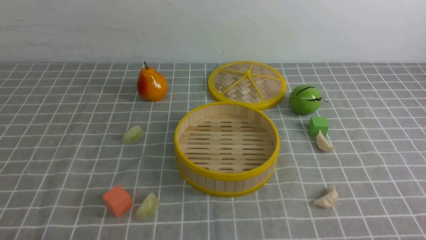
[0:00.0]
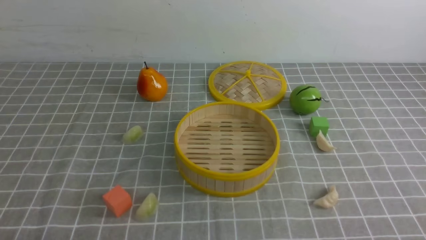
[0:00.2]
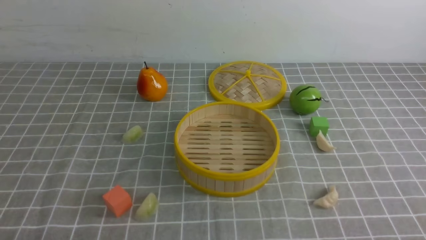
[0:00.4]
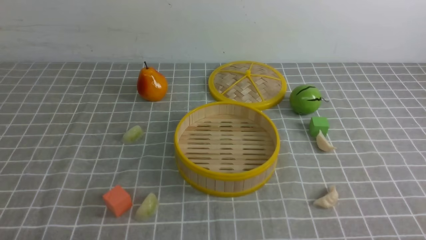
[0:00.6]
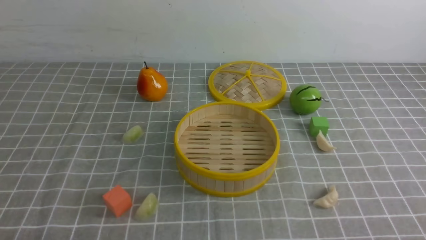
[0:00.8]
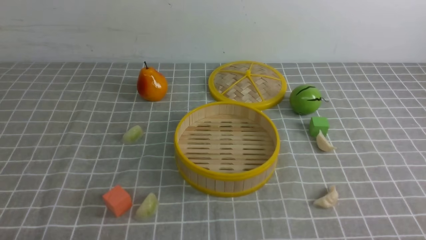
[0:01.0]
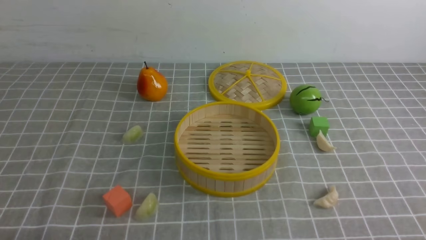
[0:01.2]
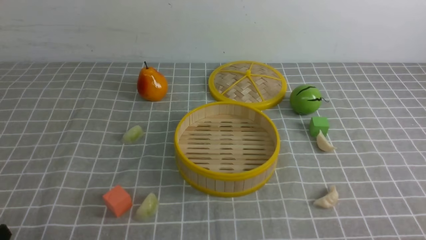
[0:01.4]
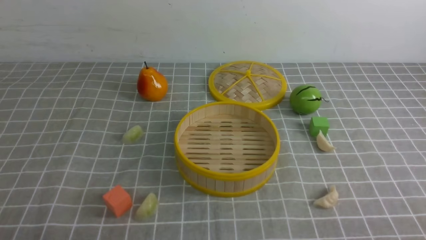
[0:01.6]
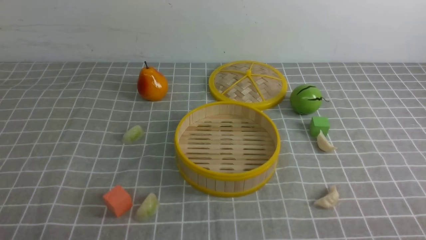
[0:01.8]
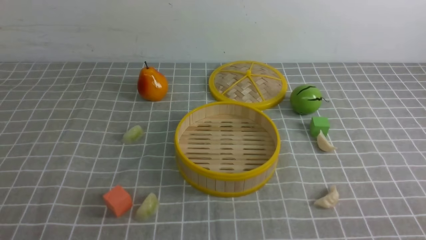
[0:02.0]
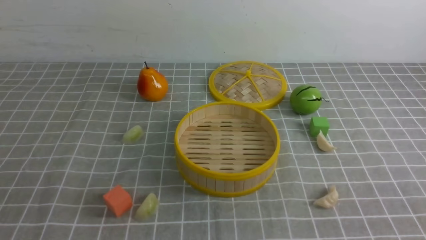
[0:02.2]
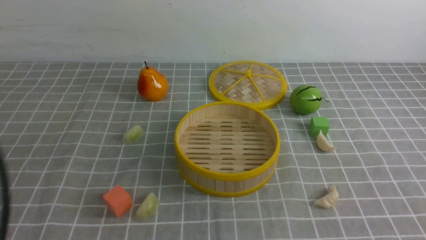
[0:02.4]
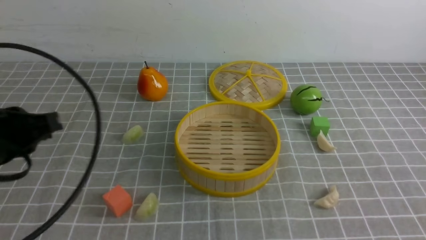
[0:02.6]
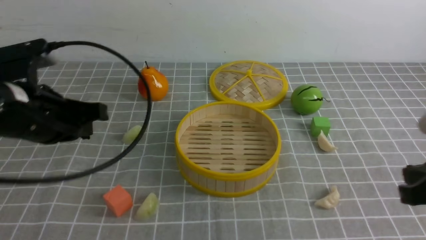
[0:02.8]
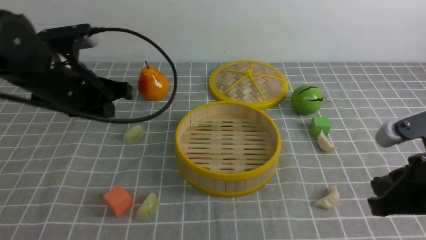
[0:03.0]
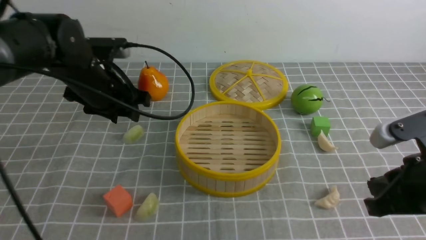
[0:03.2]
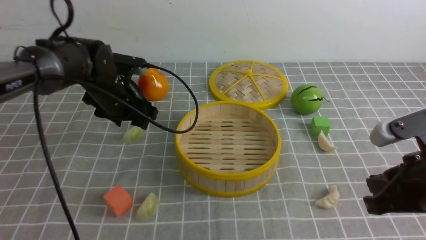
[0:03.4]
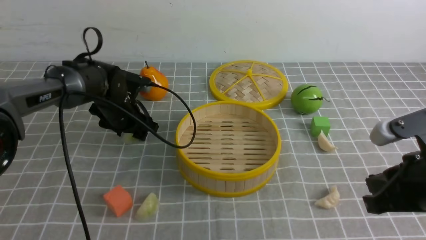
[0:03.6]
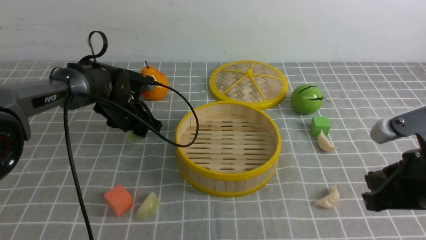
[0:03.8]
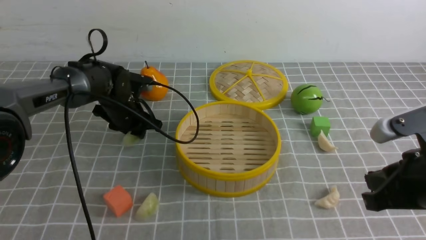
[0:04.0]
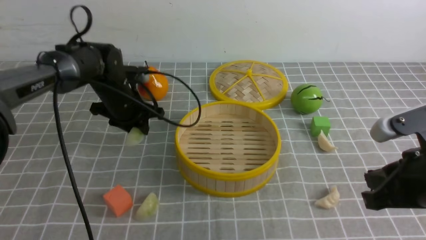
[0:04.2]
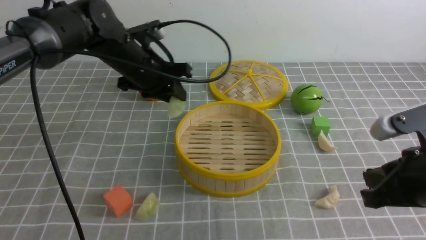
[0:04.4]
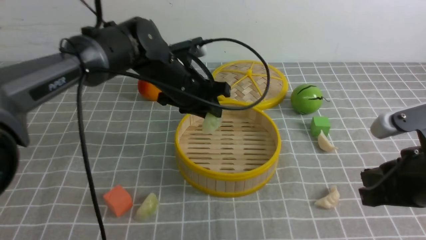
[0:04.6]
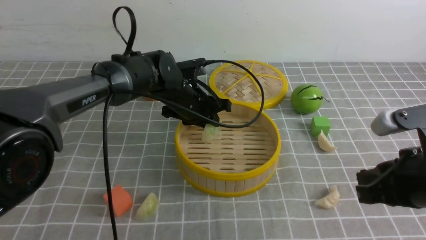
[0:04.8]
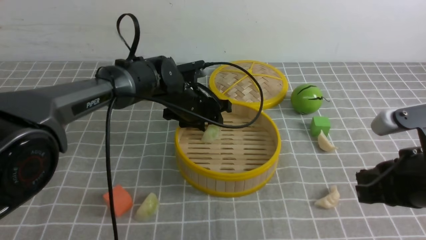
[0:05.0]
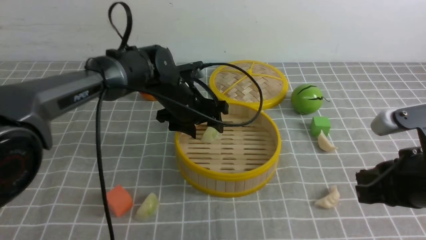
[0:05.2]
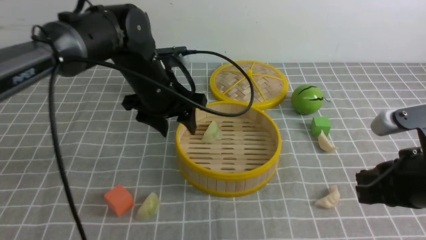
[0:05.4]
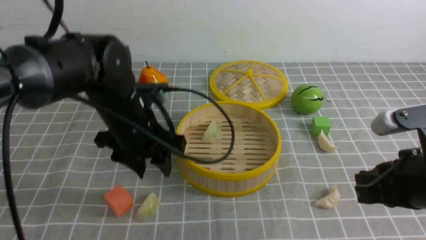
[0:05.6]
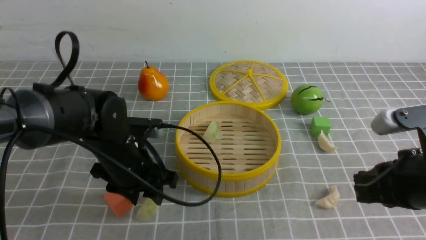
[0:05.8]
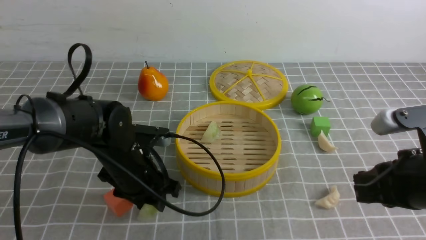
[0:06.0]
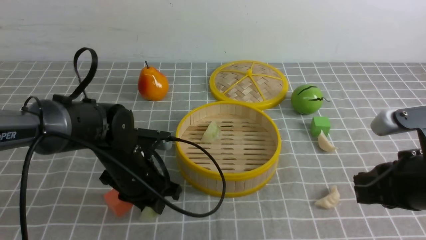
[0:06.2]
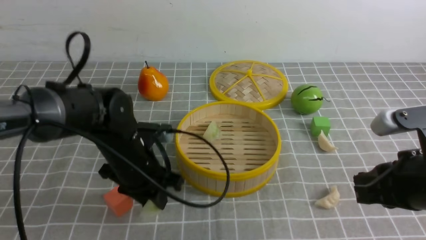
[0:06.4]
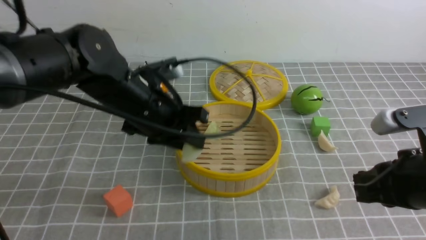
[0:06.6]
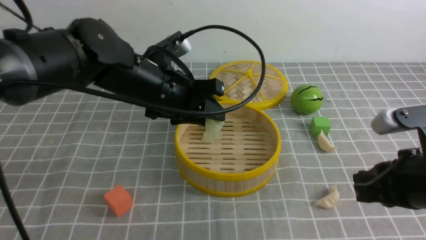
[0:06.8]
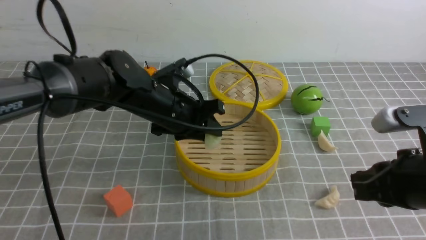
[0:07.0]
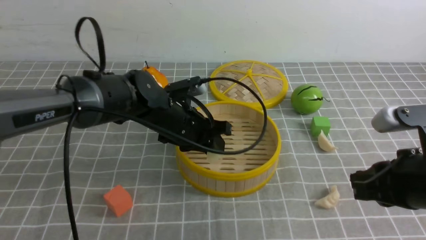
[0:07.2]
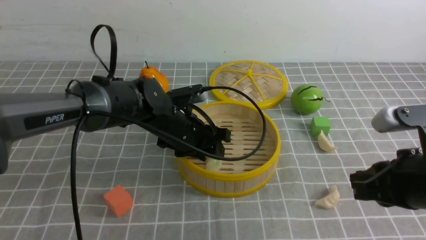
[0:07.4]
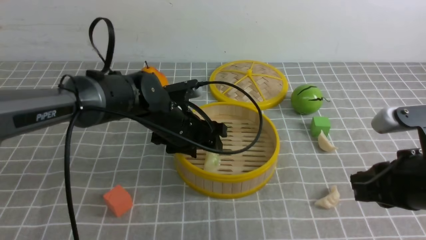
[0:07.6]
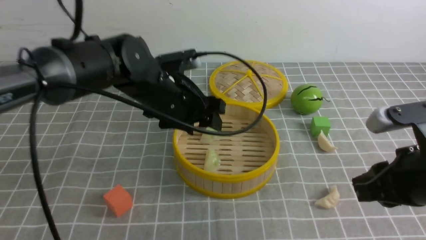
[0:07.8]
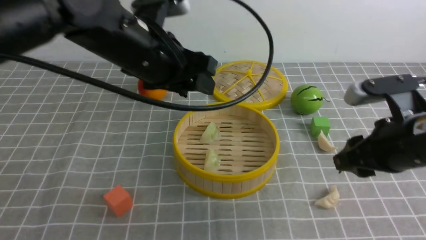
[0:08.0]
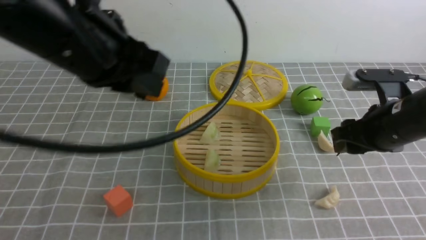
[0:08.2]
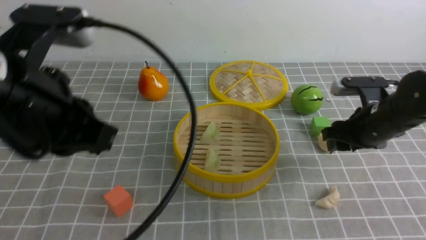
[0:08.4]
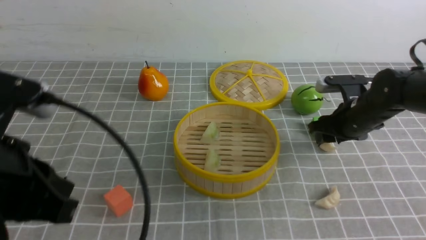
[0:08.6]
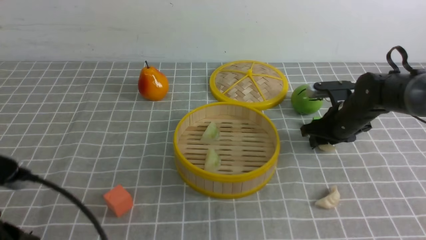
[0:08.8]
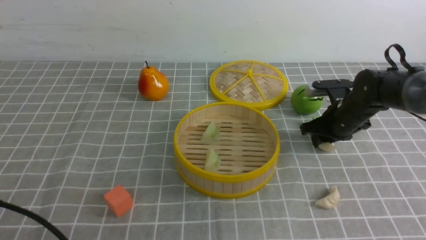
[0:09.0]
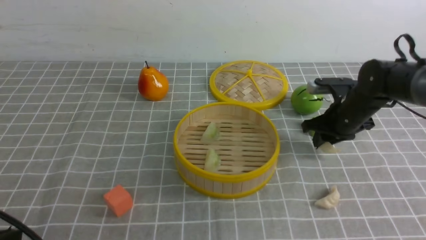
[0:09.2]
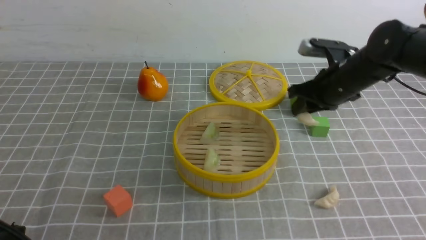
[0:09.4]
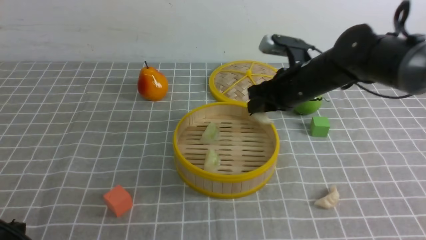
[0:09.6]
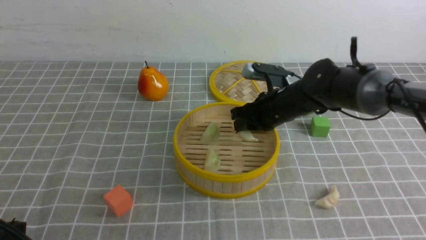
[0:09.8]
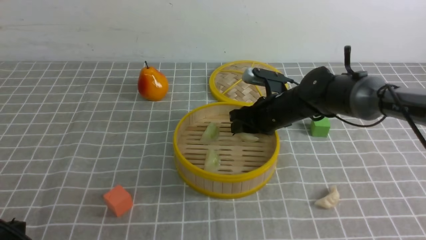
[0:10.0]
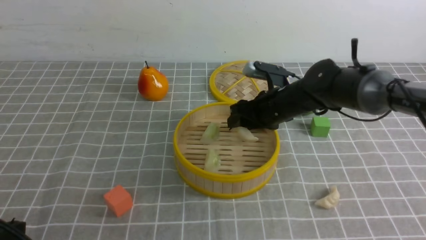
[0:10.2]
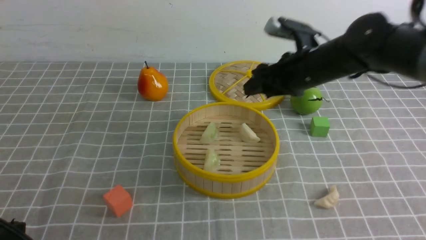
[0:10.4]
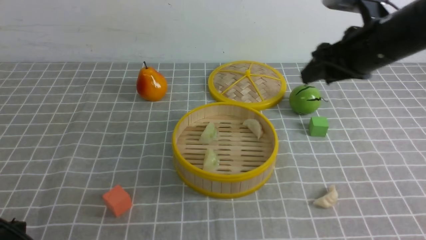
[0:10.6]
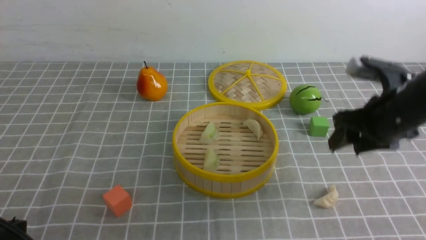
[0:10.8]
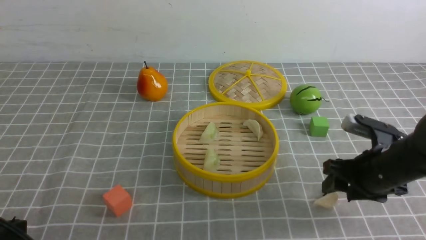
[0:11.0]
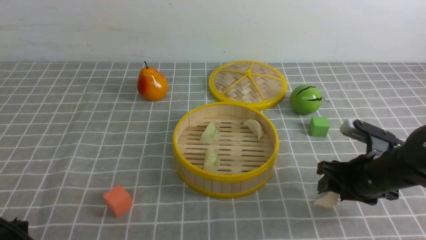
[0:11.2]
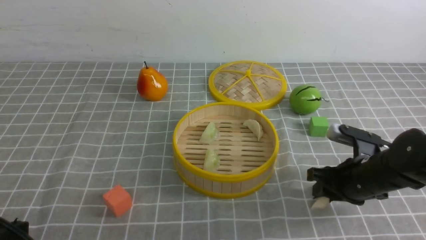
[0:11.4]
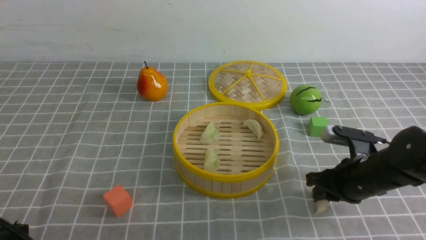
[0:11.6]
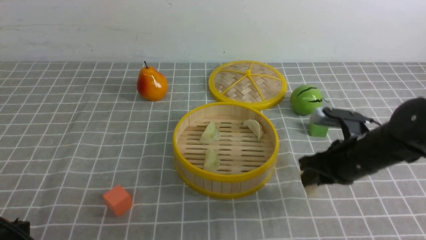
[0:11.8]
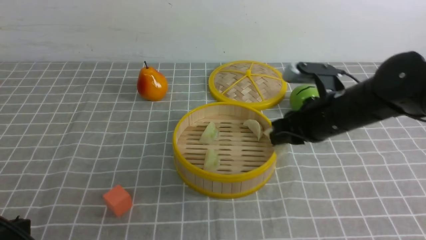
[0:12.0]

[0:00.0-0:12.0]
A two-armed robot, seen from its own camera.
Task of the whole recording: put the dumplings into the steamer on the table with the grey tablecloth.
Step, 0:00.0 to 0:04.0: use the left arm to grab a dumpling.
Step, 0:04.2 to 0:05.2: use the left arm to put the dumpling into the steamer.
Step, 0:05.4 to 0:06.4: use the left arm to grab a dumpling.
Step, 0:06.6 to 0:07.6: use the left arm to put the dumpling into the steamer.
Step, 0:07.8 to 0:09.2: use the right arm to grab a dumpling.
Step, 0:09.4 to 0:10.4: use the right arm to put the dumpling into the steamer.
Step, 0:10.6 to 0:11.6: use the right arm to grab a dumpling.
0:01.6 to 0:03.0: The left gripper travels forward by approximately 30 cm, and closes and opens again. Meanwhile the right gripper heads forward, upward and to the left, covering roughly 15 cm.
0:03.0 to 0:04.4: The left gripper heads forward, to the right and downward, covering roughly 15 cm, and opens, then closes once more.
0:04.4 to 0:06.0: The left gripper moves backward and downward, roughly 15 cm.
0:06.0 to 0:07.6: The left gripper is displaced to the right, forward and upward by approximately 10 cm.
0:07.6 to 0:09.0: The right gripper travels forward and downward by about 25 cm, and opens and closes again. Meanwhile the left gripper heads backward and to the left, covering roughly 35 cm, and closes up.
0:09.0 to 0:10.4: The right gripper shifts approximately 15 cm upward and to the left, and opens up.
0:10.4 to 0:12.0: The right gripper shifts approximately 5 cm backward, travels downward and back again, some 15 cm each way, and closes.

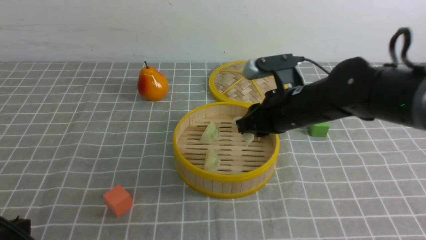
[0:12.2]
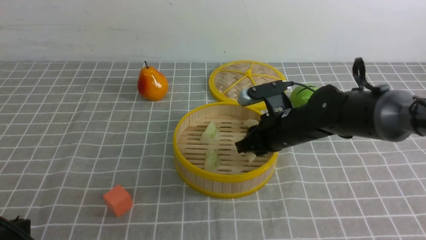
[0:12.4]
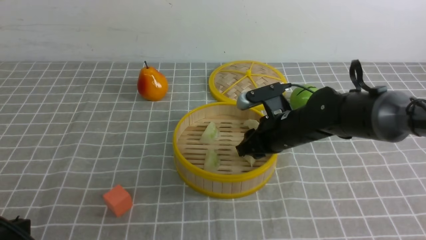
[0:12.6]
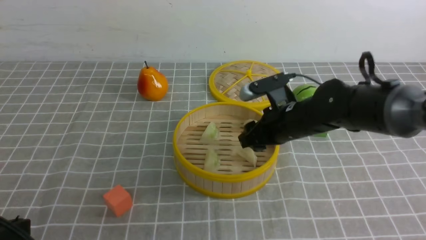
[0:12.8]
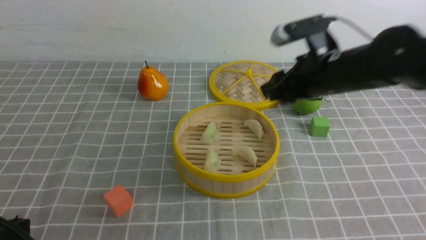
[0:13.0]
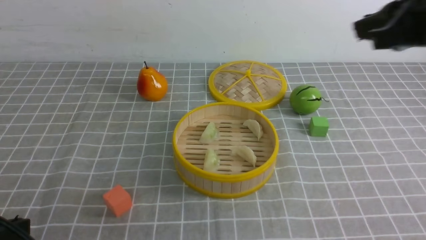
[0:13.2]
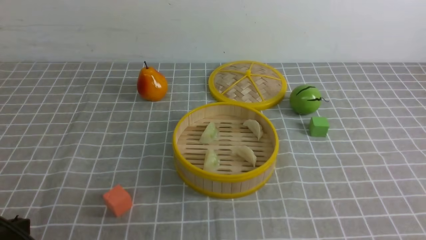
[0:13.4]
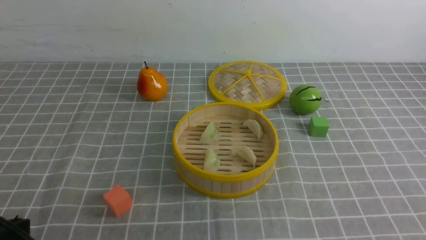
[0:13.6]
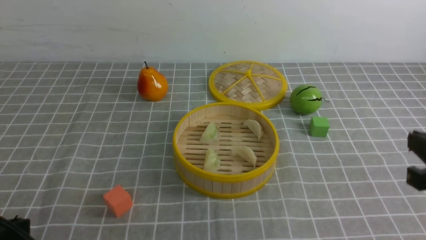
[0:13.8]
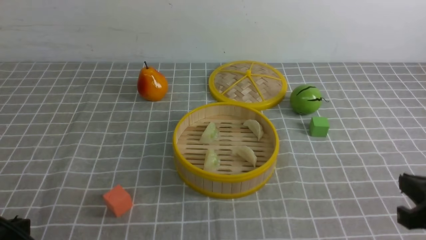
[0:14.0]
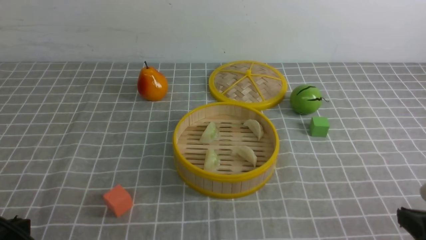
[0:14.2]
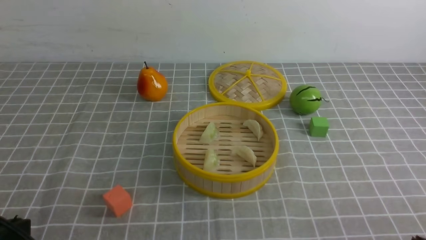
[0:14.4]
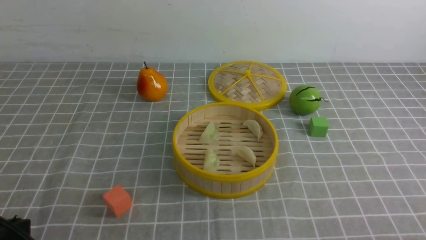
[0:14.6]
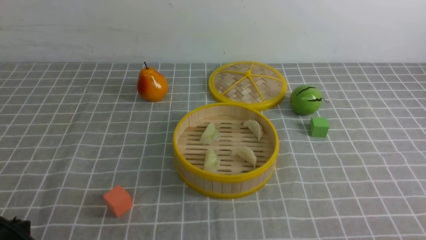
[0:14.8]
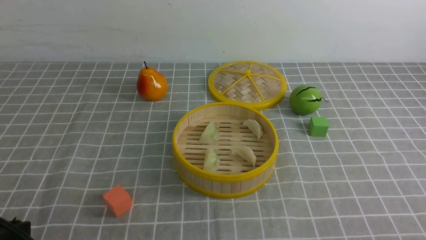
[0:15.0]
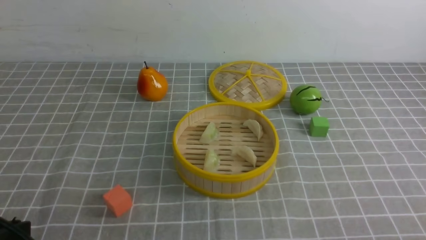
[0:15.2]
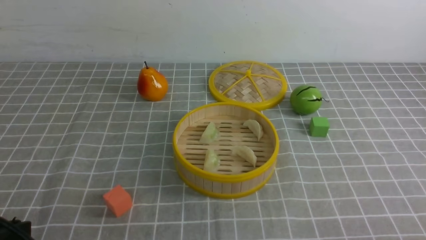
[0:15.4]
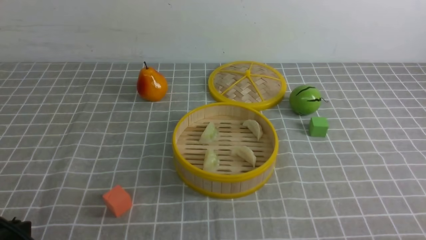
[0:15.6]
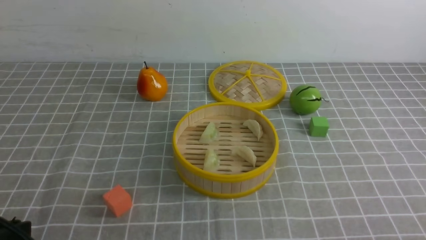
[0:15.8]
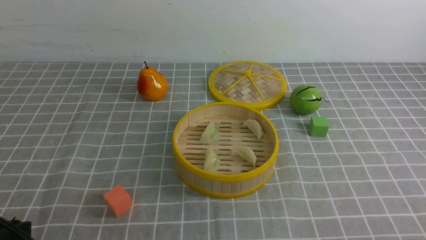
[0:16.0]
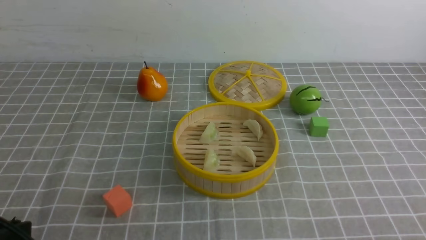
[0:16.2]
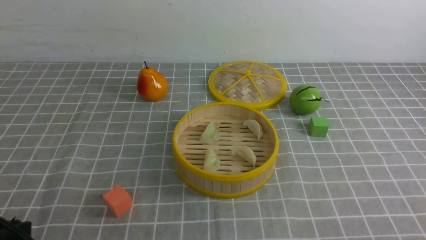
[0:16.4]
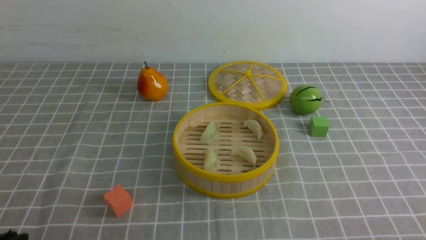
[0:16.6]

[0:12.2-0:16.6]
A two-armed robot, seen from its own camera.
Task of the whole recording: put the dumplings into the steamer on the table with the grey tablecloth.
Step, 0:12.2 to 0:12.8: use the right arm to put the dumpling into the steamer.
0:12.2 to 0:13.6: The right gripper moves backward, to the right and upward, roughly 25 cm, and closes its fingers.
